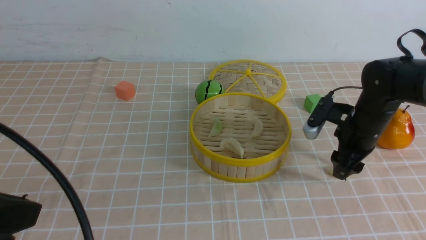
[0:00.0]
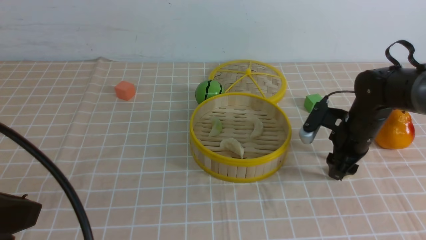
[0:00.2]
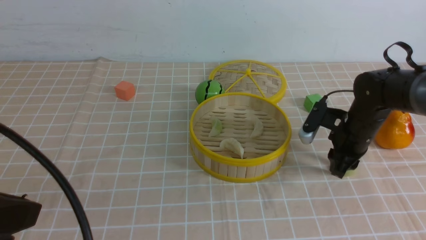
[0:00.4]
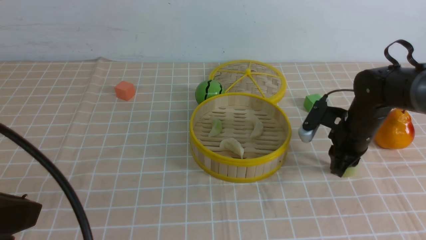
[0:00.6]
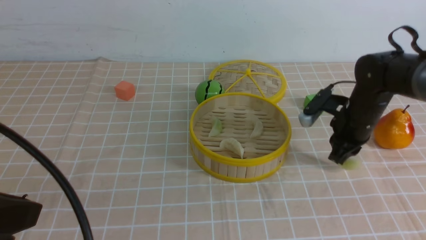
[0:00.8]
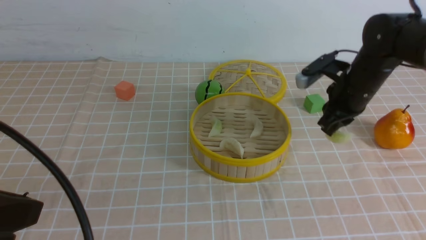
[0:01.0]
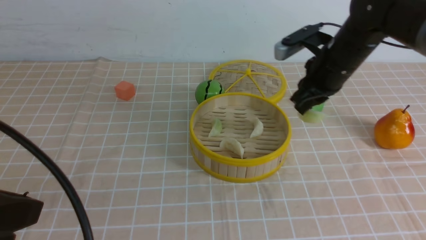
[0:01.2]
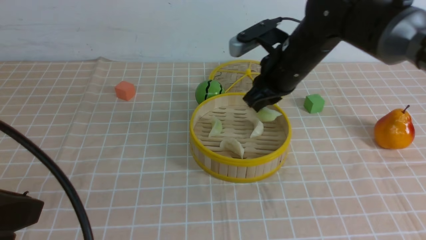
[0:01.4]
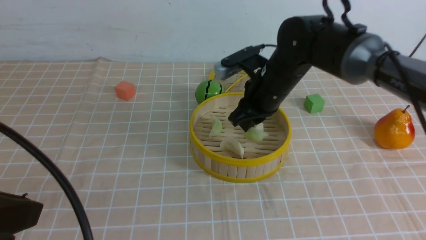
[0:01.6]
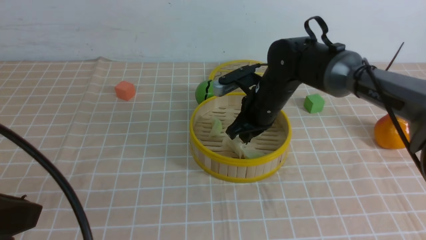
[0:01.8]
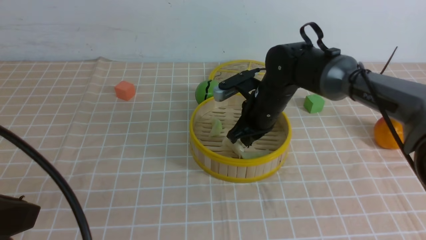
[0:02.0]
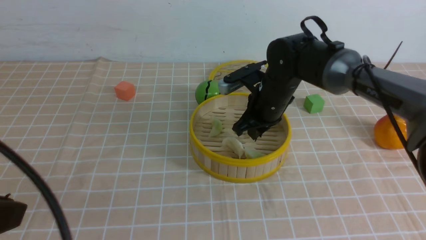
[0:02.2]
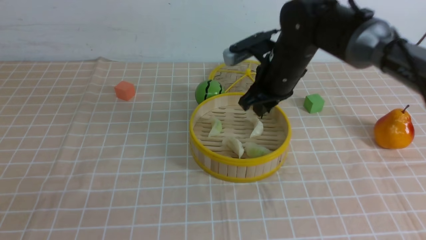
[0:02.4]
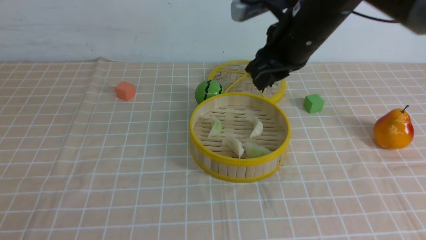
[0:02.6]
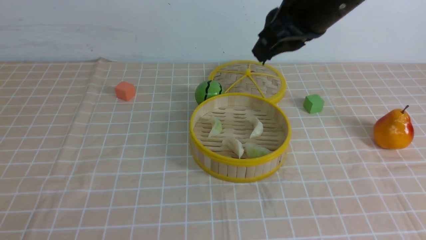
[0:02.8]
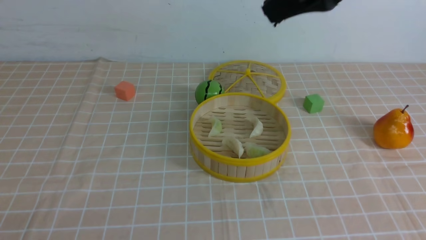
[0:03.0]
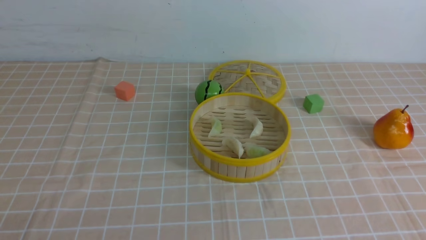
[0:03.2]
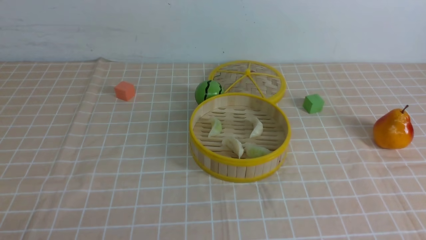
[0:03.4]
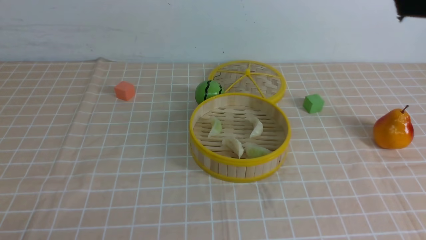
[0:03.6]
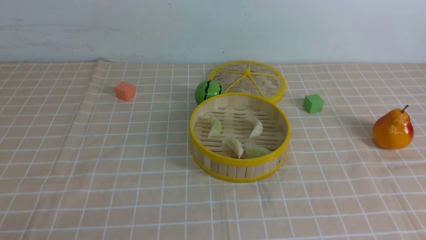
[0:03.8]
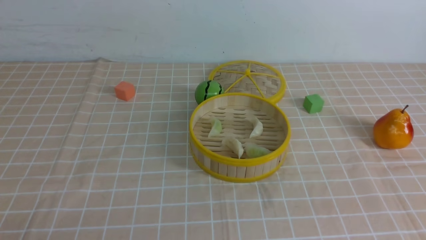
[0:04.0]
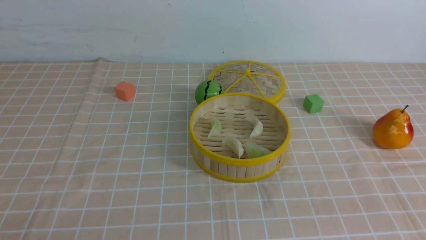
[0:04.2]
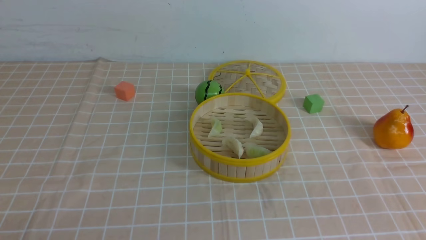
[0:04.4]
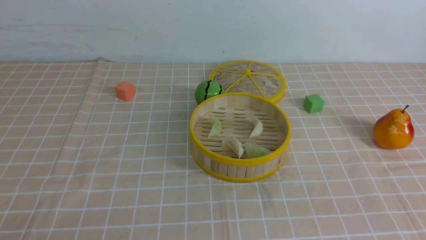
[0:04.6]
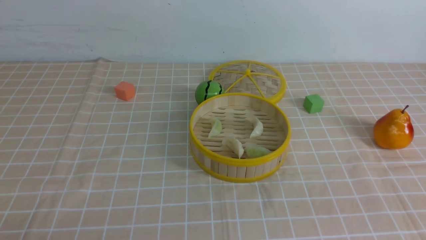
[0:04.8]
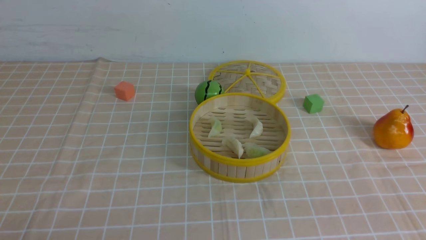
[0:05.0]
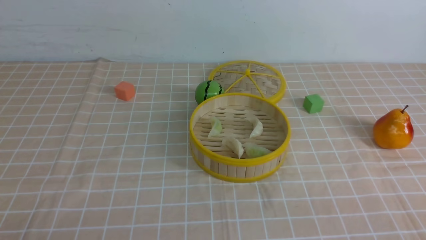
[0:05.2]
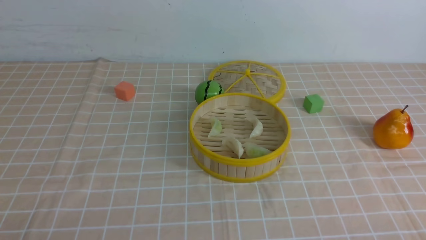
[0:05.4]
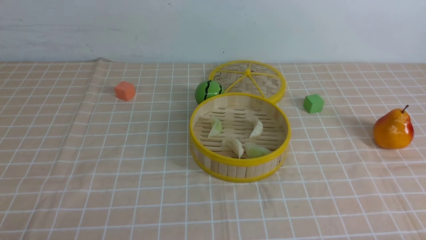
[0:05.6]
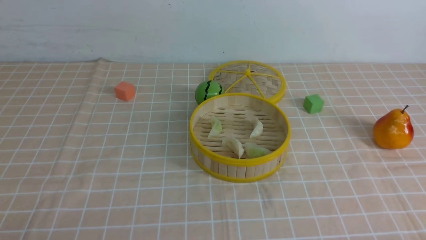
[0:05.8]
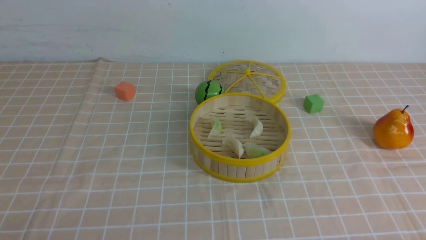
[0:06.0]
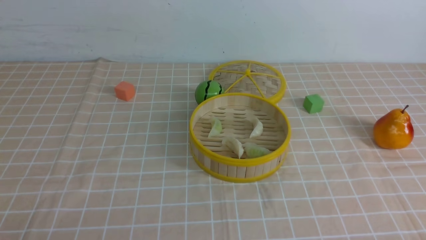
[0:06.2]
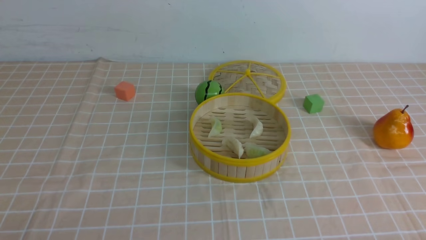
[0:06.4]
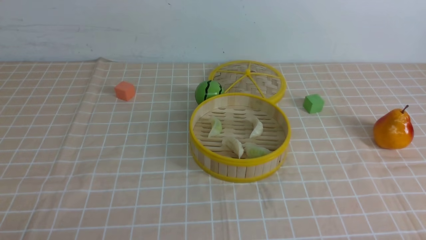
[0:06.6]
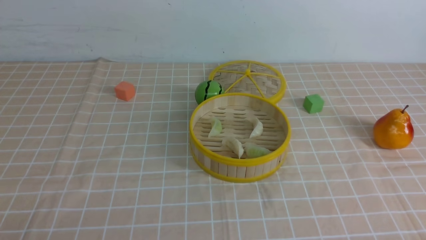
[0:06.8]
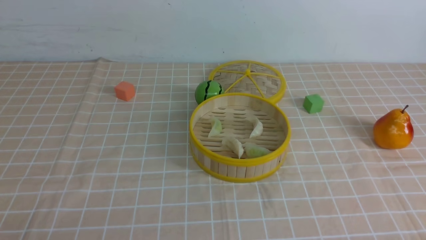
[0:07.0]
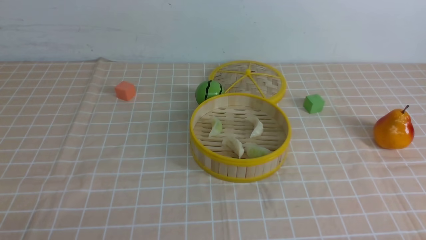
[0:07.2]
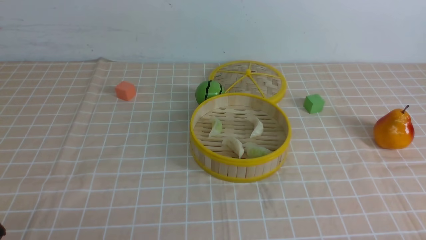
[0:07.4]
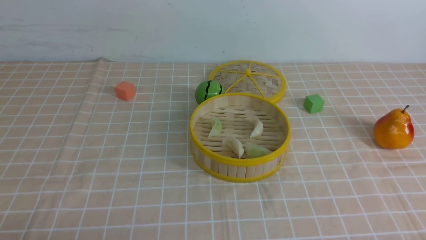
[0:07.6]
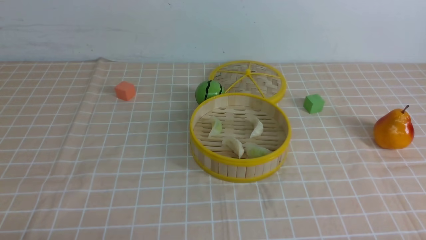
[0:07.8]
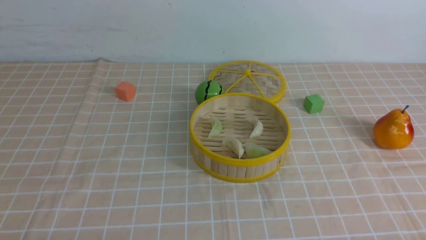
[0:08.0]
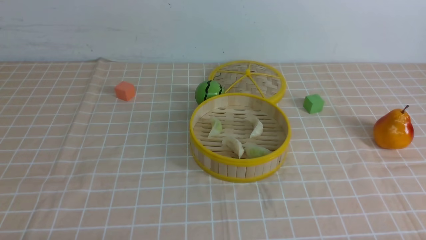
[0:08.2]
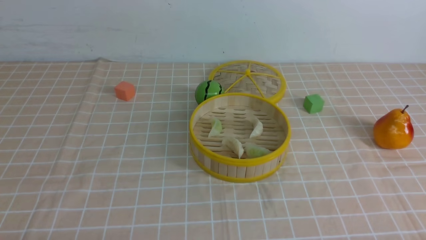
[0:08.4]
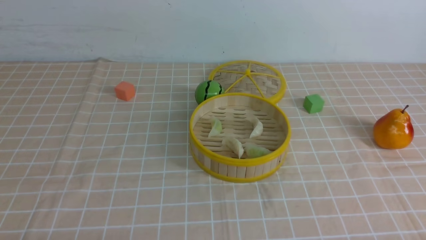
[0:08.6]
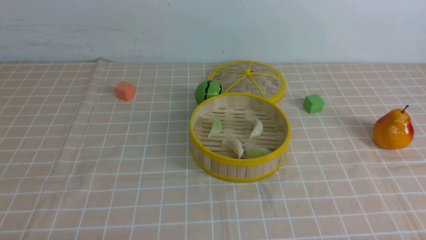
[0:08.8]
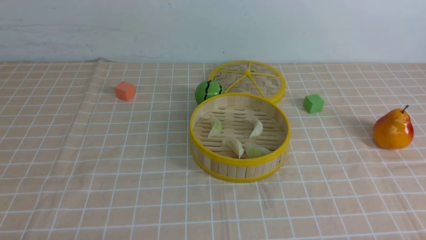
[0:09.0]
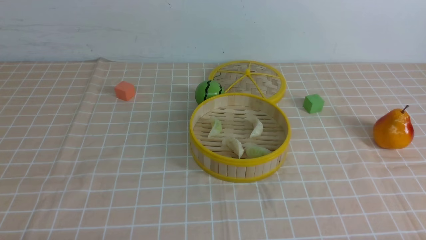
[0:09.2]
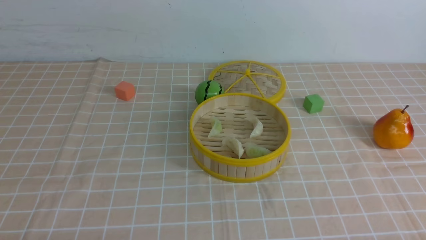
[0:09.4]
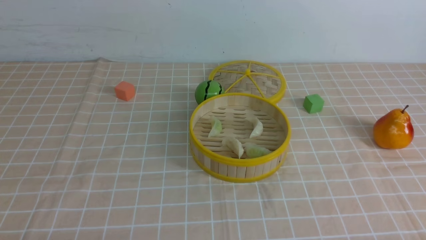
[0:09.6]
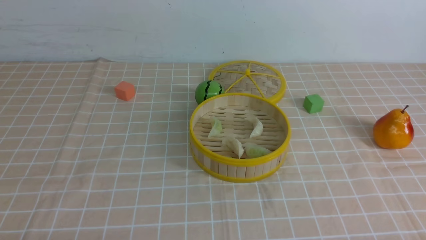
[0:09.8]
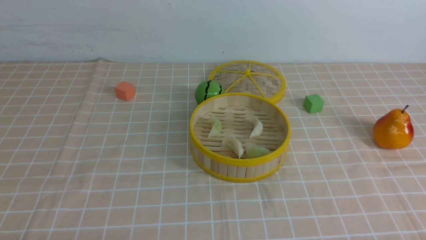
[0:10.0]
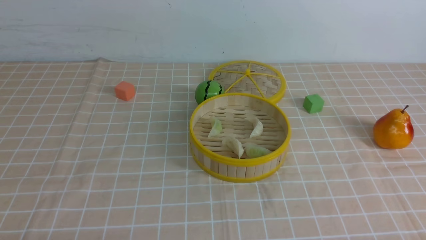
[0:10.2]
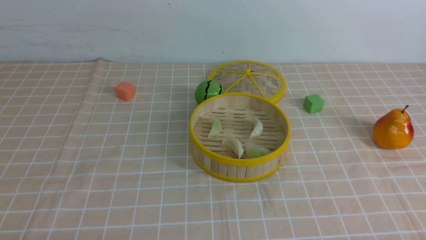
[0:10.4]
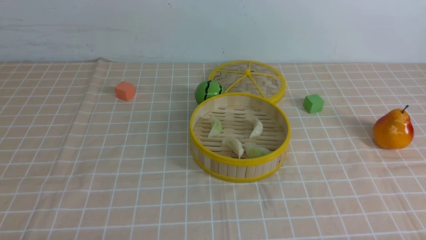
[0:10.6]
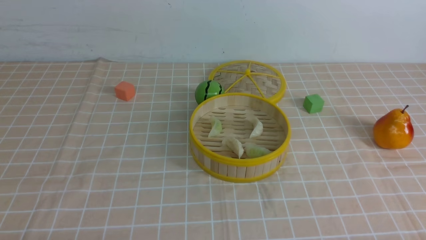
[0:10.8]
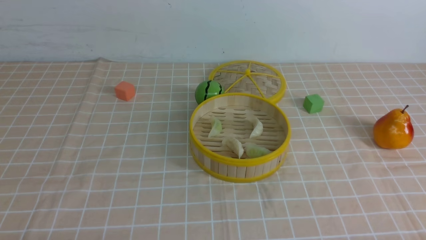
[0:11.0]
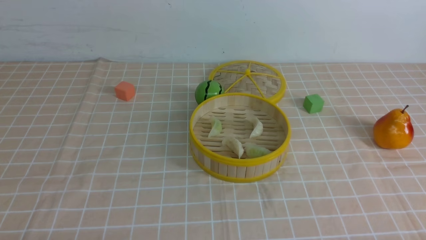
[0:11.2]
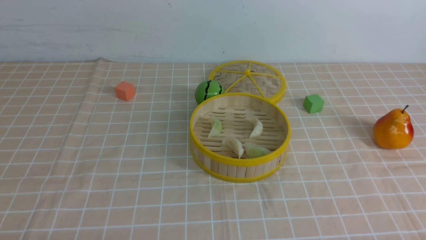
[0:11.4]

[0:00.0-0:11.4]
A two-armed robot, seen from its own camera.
Task of the whole recording: put the dumplings into the steamer on the table with the brown tablecloth.
Step, 0:00.6 to 0:02.2: use the right arm to put the dumpling into the steamer.
0:00.0 to 0:01.4: The right gripper heads to the left and upward, covering about 15 cm, and closes its fingers.
0:01.4 to 0:02.8: The left gripper shifts about 10 cm backward and to the left, while the right gripper heads upward and backward, covering roughly 15 cm.
0:02.8 to 0:04.2: The right gripper moves backward and to the right, roughly 35 cm; the left gripper shifts some 10 cm downward.
0:08.6 to 0:11.4: Both grippers stay about where they are.
